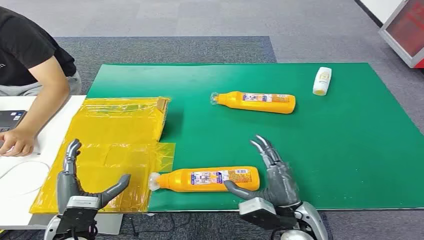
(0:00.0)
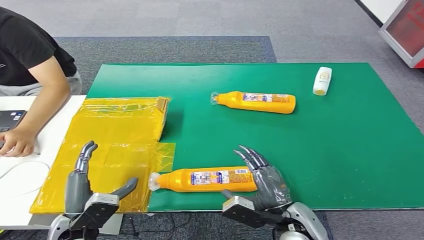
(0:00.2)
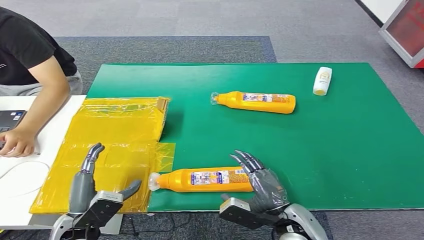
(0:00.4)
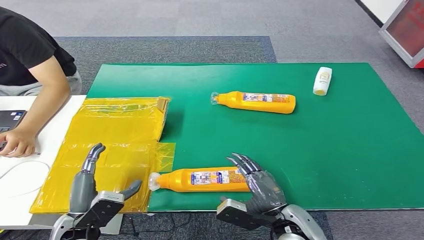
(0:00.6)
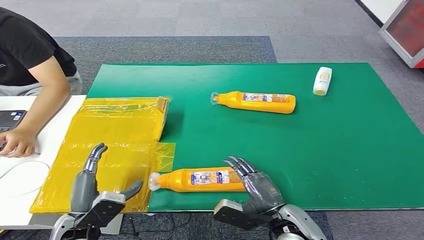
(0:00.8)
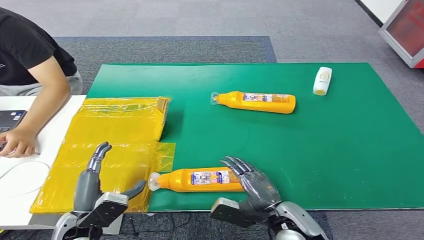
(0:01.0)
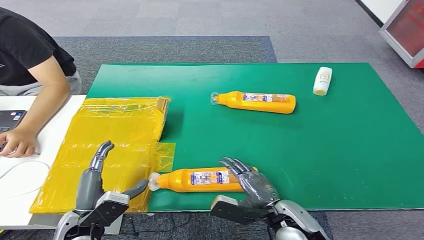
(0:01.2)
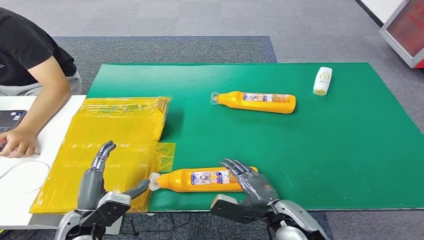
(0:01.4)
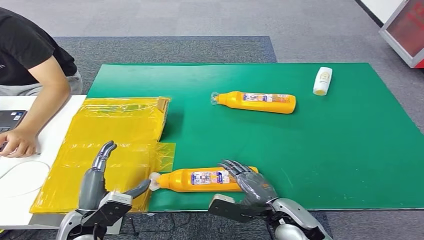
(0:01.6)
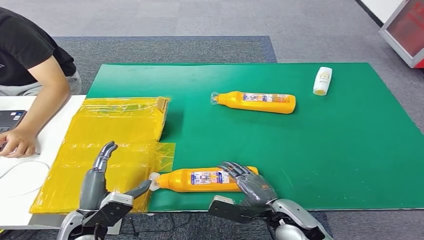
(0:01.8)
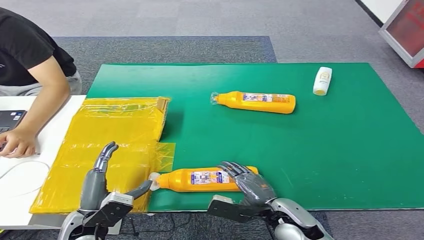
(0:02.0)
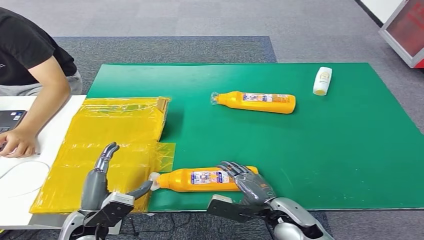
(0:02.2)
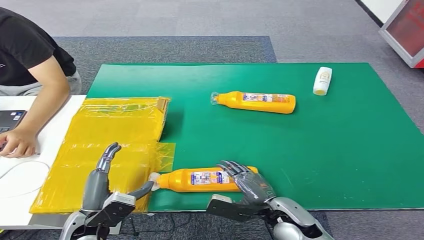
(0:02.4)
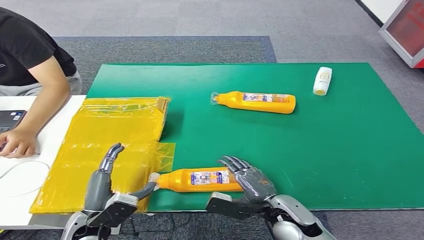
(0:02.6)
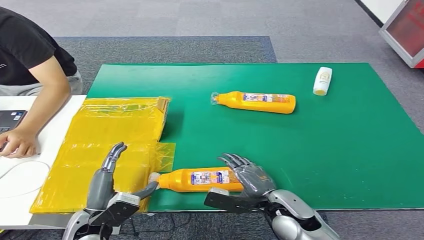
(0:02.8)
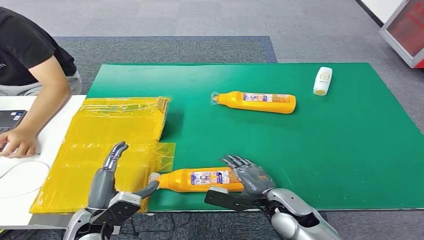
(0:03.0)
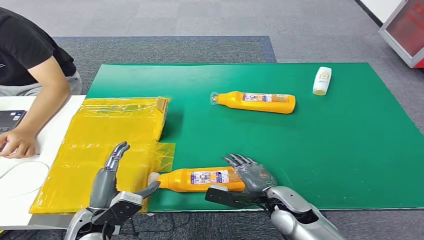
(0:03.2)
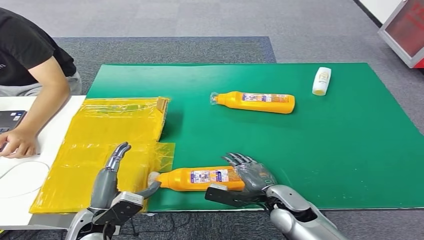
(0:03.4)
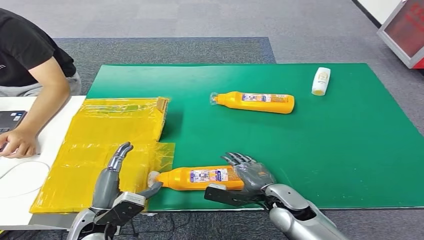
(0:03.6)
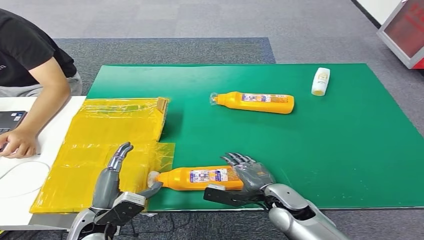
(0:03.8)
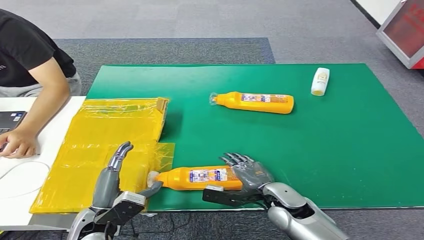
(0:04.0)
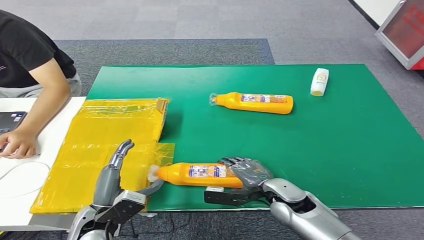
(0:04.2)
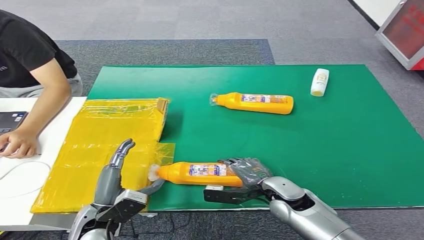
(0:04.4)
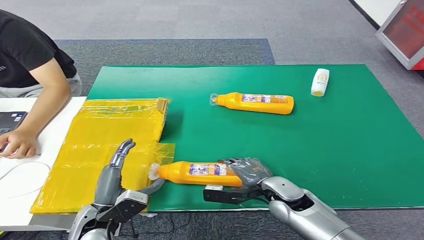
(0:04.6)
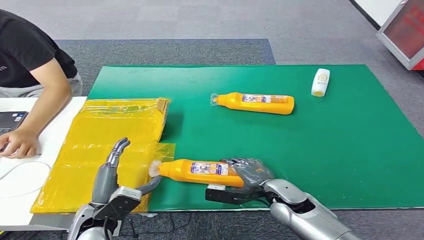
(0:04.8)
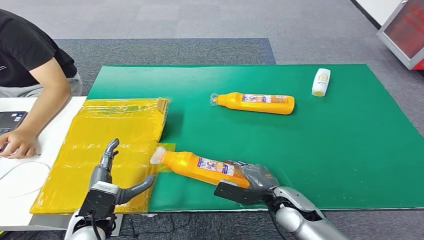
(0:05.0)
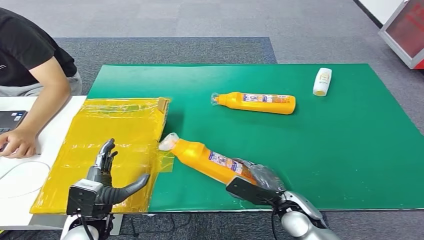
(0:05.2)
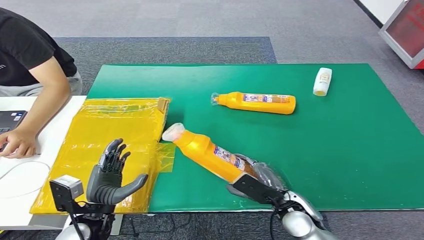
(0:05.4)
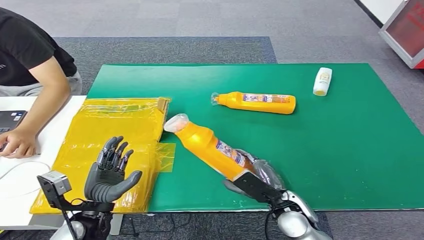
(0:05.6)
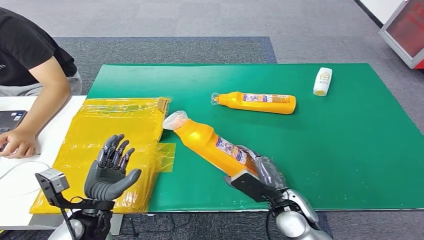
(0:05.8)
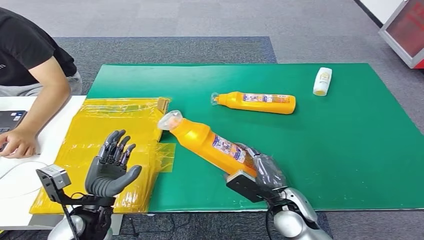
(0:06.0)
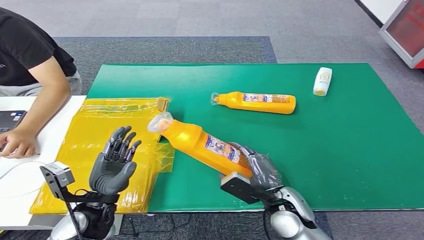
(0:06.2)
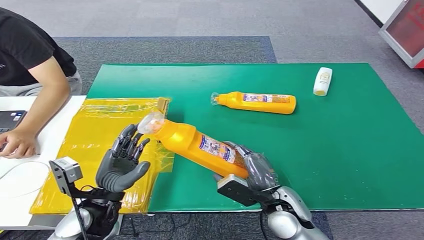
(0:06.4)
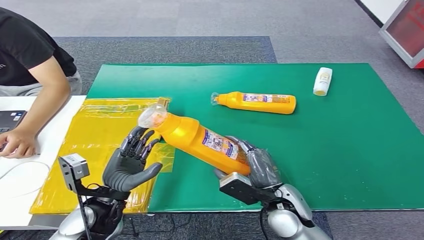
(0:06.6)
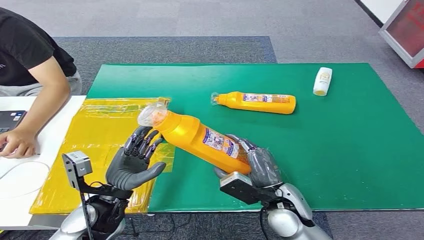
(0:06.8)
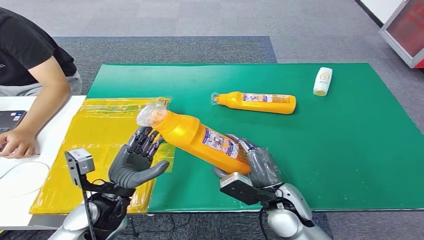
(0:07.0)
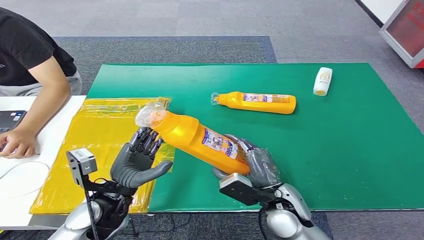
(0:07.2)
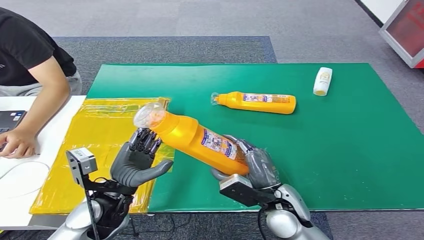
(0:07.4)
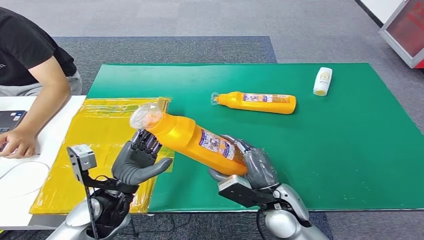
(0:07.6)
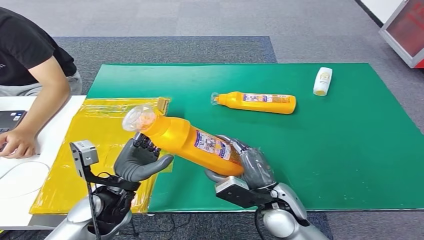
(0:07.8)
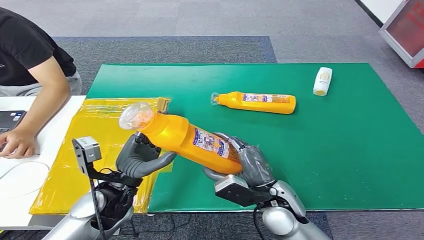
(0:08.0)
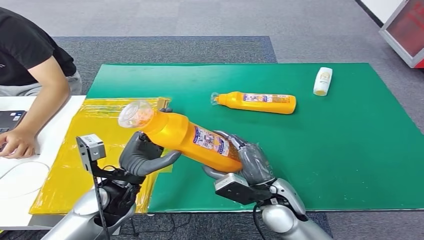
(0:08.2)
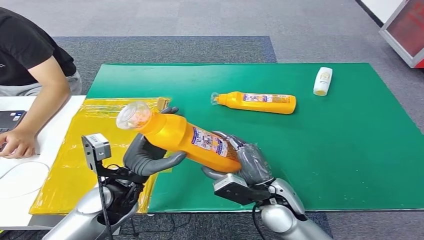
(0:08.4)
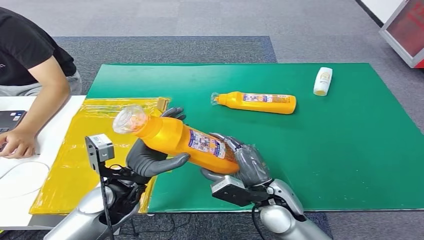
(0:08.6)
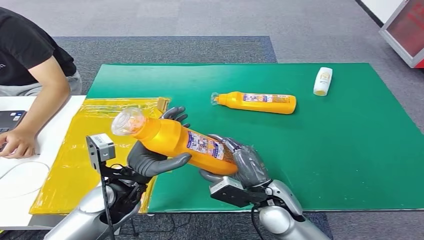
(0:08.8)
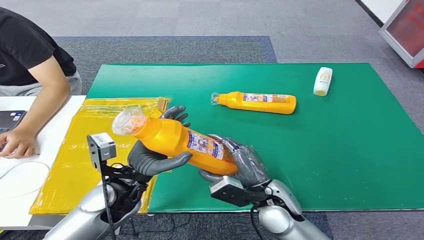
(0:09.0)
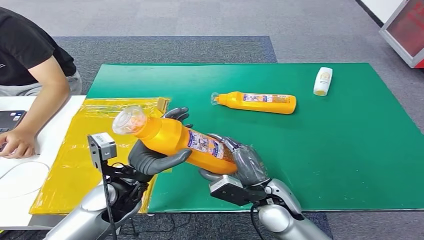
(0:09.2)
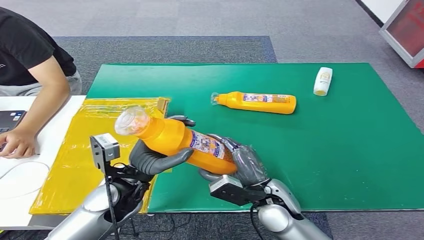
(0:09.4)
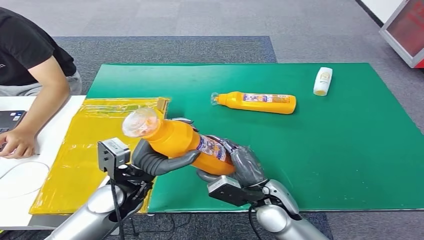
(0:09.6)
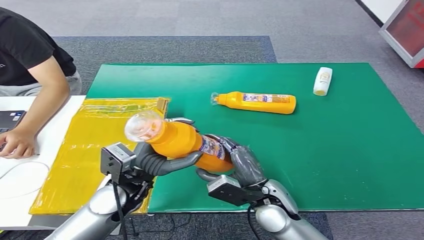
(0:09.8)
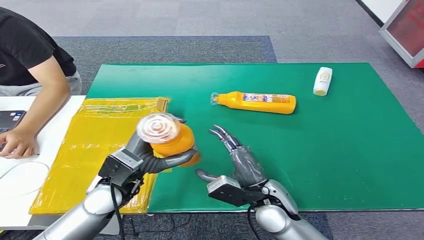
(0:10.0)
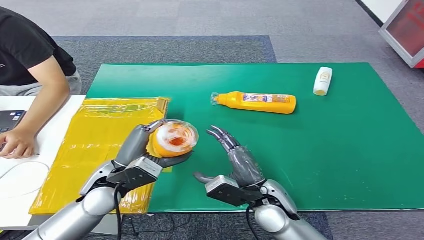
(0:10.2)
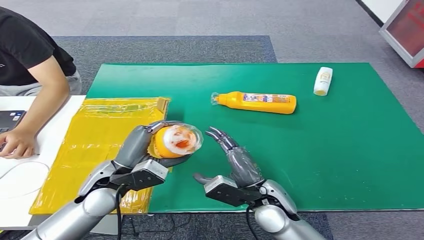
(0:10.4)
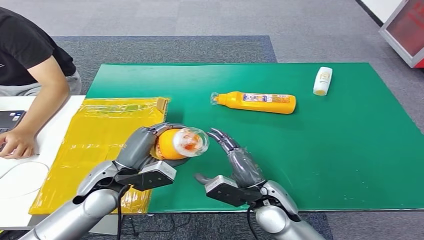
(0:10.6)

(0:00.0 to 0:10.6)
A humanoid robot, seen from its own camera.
Step, 0:00.0 - 0:07.4: Pick up the bottle from the table.
0:01.6 - 0:03.0: There are only small adjustments of the hands.
0:03.0 - 0:04.6: The hands move only a little.
0:04.6 - 0:06.0: The right hand changes place by some 5 cm.
0:06.0 - 0:07.6: The left hand moves some 5 cm.
0:07.6 - 0:09.0: The hands make only small movements.

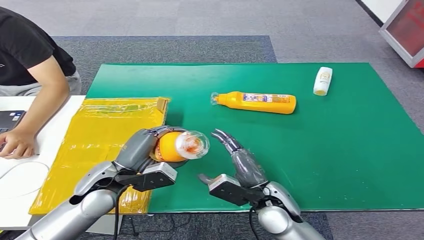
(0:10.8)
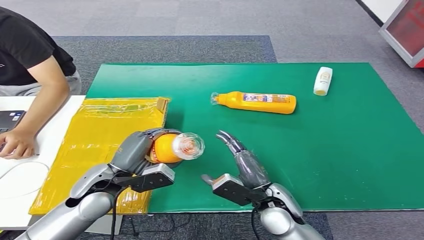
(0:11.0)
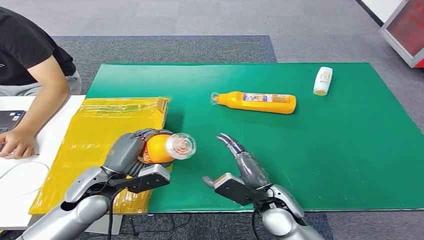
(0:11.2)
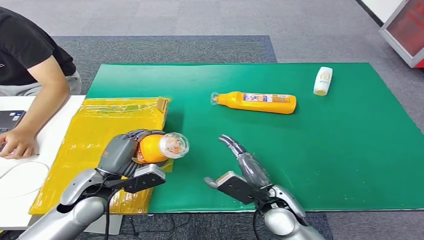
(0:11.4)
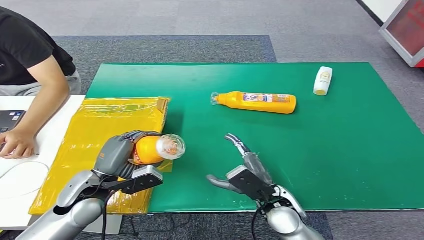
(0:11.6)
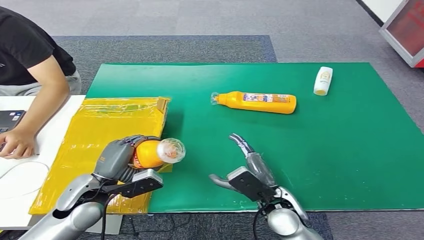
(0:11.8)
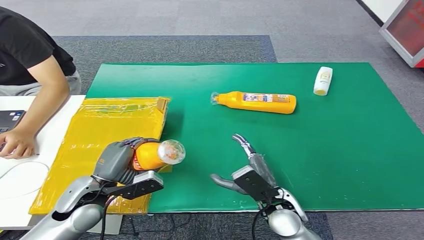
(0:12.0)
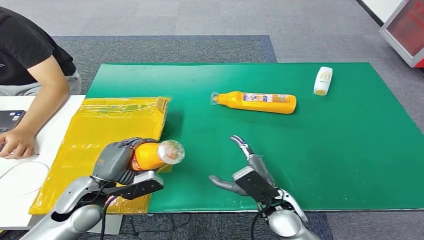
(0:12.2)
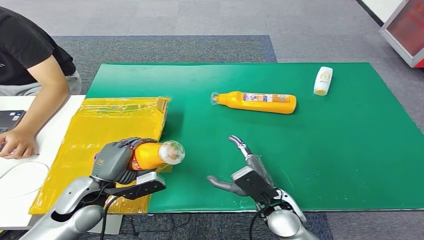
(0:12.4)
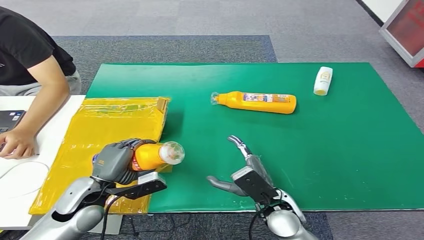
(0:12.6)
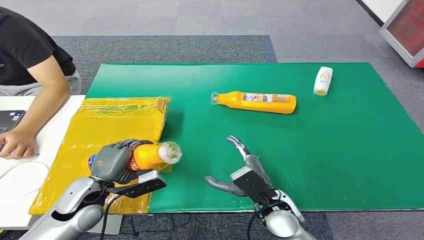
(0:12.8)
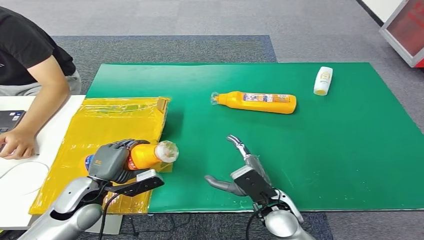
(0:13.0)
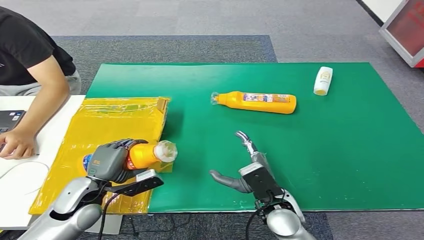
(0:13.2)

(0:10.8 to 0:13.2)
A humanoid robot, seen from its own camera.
Step, 0:10.8 - 0:13.2: Turn the bottle to the front side.
0:10.8 - 0:12.0: The left hand shifts by approximately 5 cm.
0:12.0 - 0:13.2: The hands stay close to where they were, moving slightly.

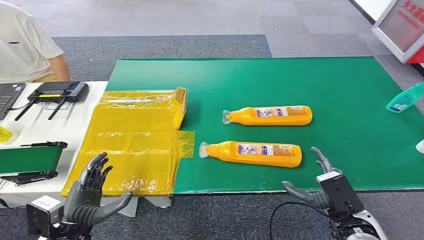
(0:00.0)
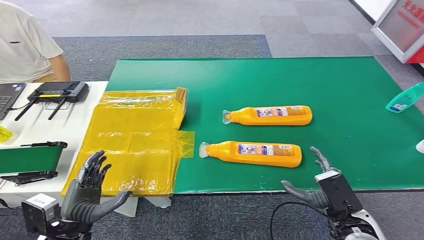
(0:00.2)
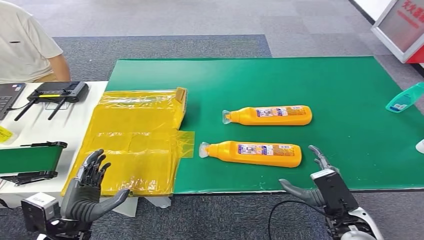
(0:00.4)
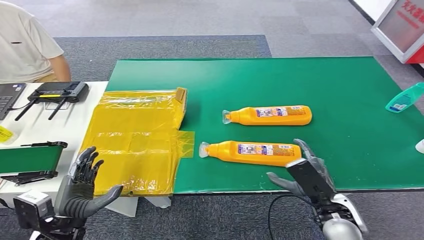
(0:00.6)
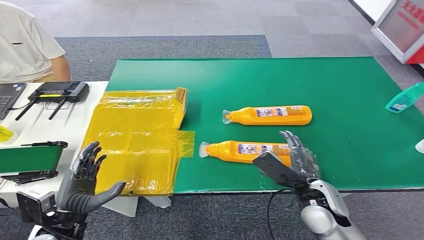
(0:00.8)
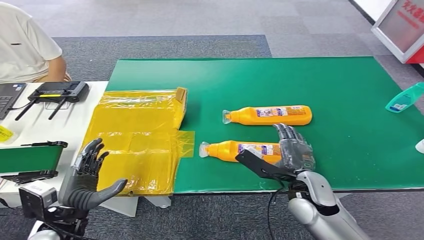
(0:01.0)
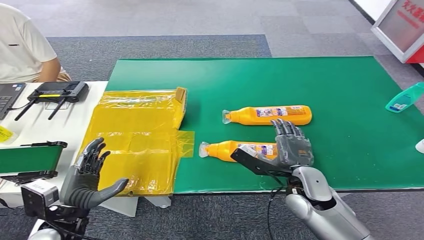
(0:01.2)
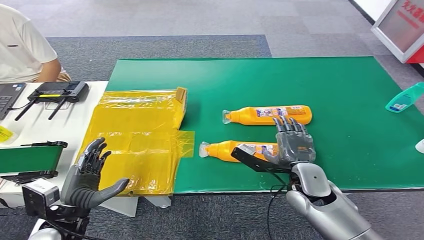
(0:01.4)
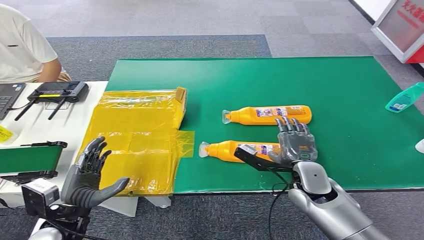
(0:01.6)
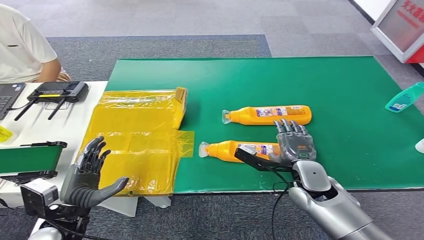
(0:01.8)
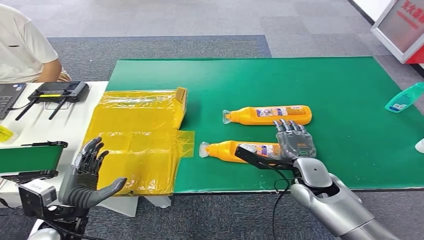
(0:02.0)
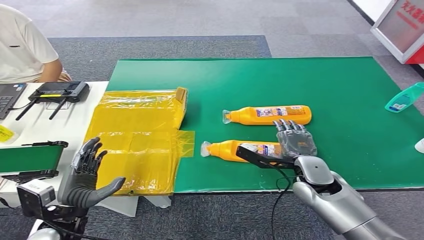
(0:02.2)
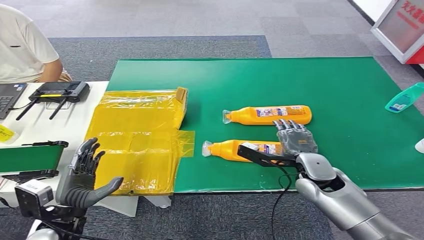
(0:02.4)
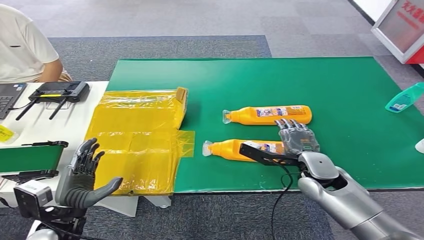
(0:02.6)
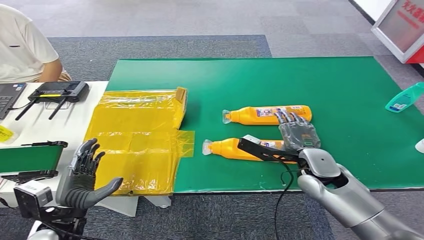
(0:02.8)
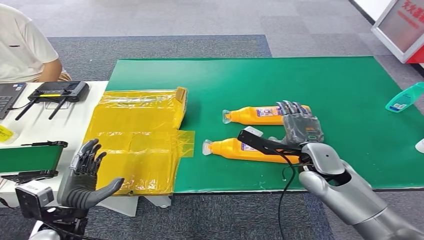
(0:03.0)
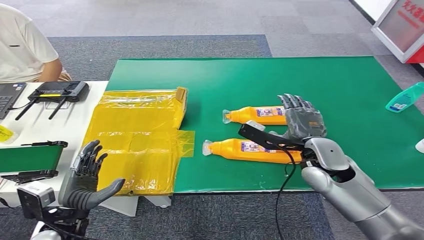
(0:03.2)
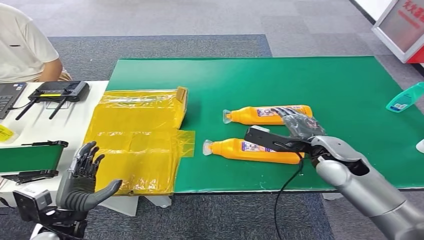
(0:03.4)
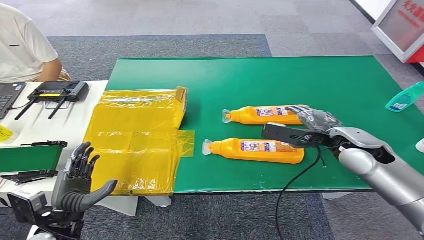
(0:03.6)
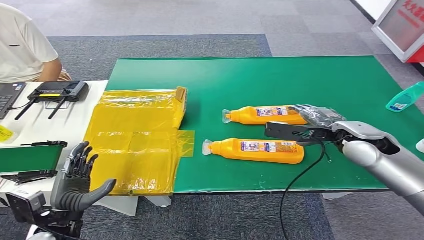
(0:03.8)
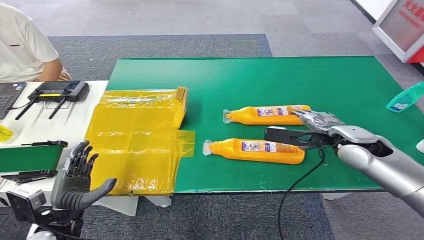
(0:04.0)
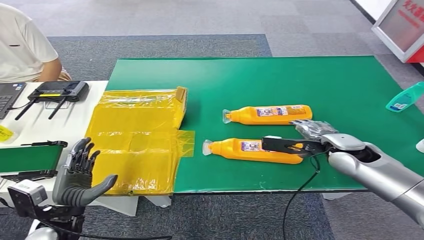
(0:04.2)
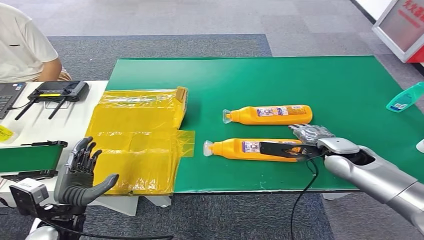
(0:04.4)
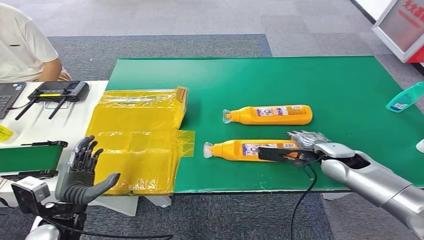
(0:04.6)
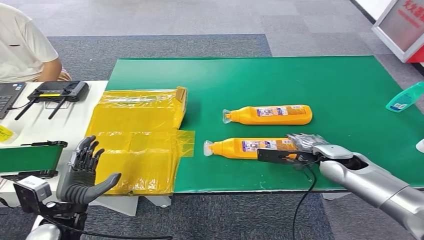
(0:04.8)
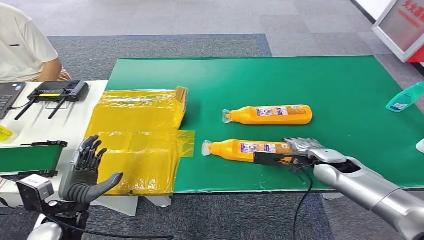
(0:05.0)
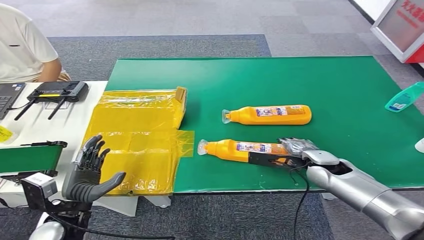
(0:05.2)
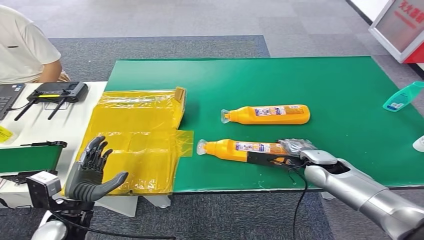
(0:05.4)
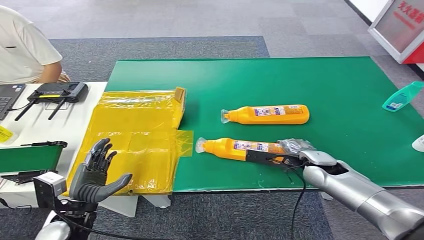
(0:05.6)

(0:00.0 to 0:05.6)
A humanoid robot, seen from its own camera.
0:01.4 - 0:02.8: There are only small adjustments of the hands.
0:02.8 - 0:04.2: The right hand shifts roughly 5 cm to the right.
